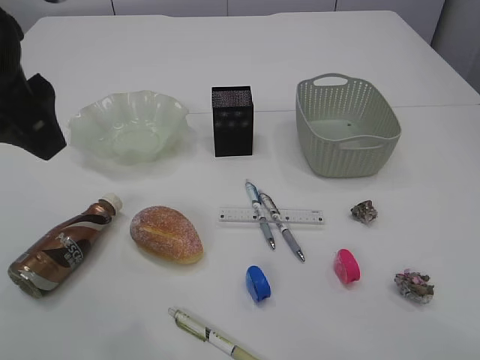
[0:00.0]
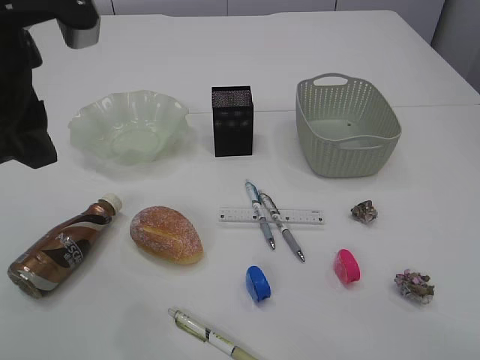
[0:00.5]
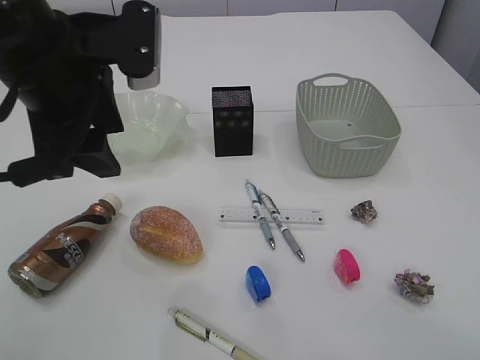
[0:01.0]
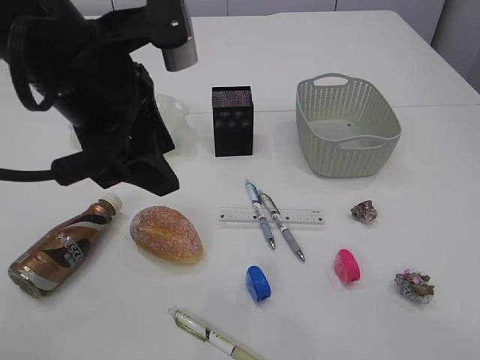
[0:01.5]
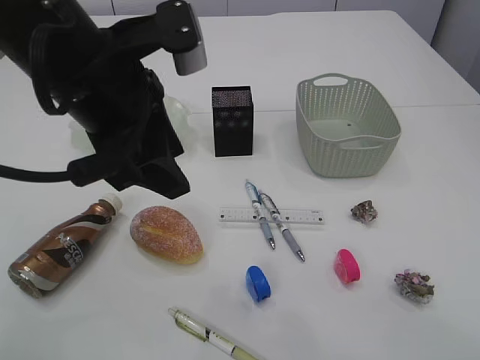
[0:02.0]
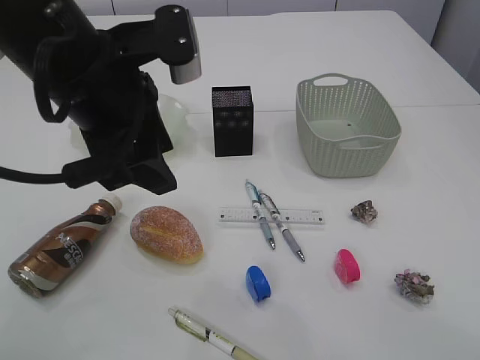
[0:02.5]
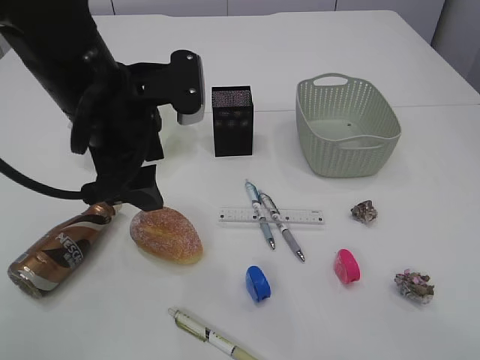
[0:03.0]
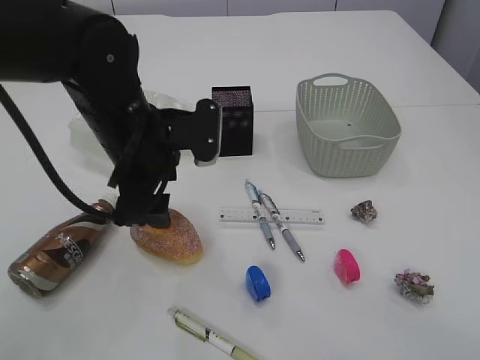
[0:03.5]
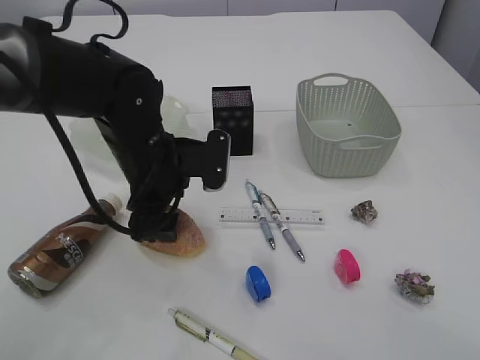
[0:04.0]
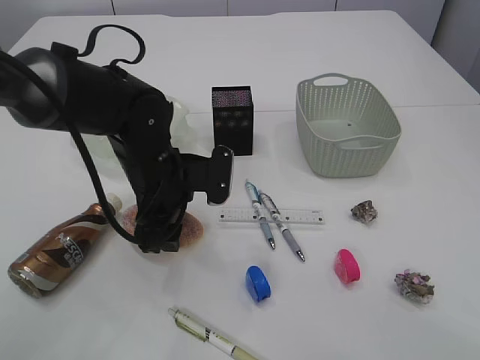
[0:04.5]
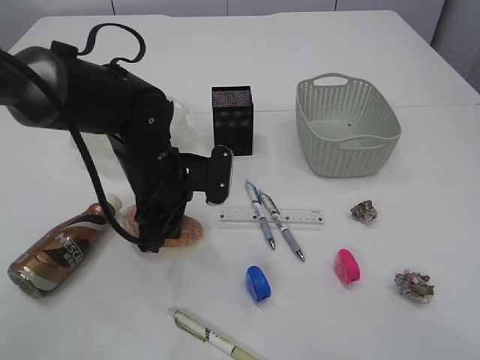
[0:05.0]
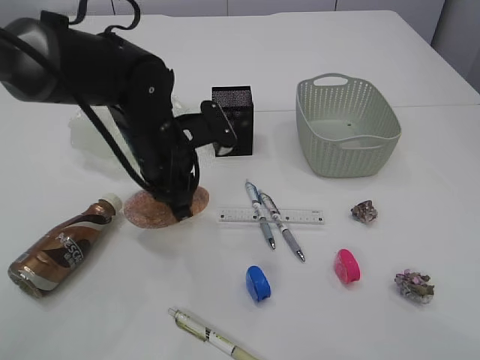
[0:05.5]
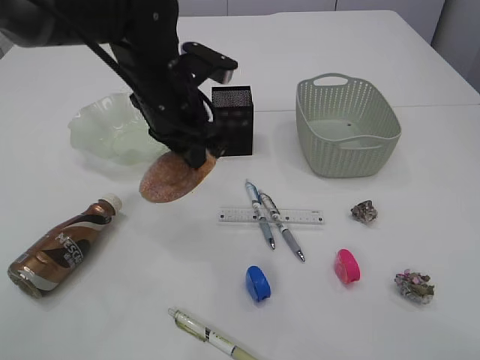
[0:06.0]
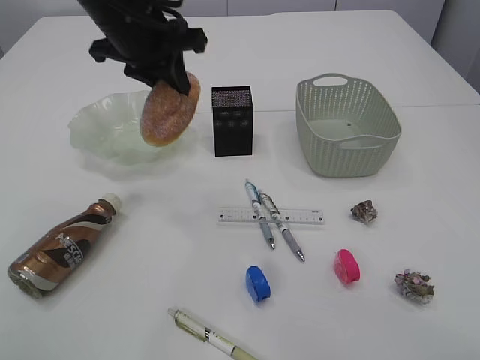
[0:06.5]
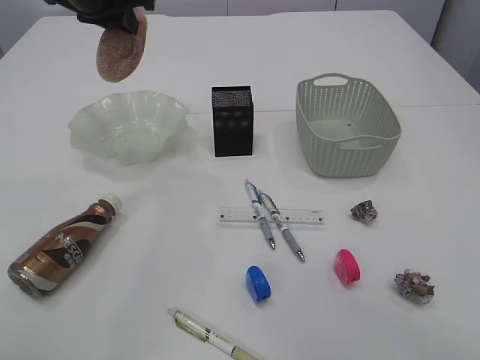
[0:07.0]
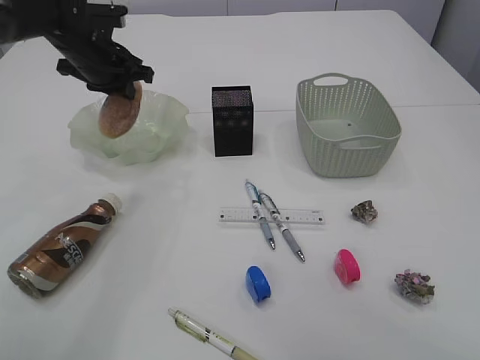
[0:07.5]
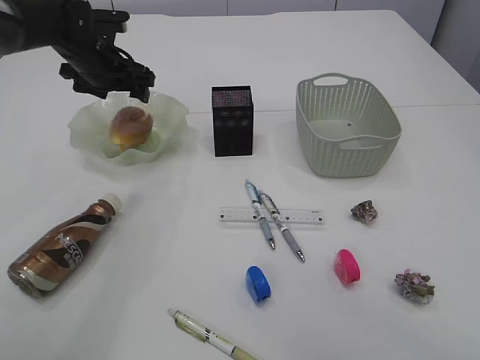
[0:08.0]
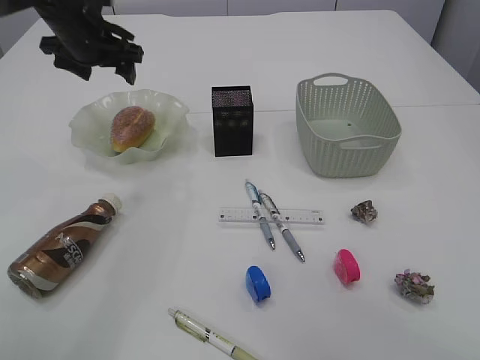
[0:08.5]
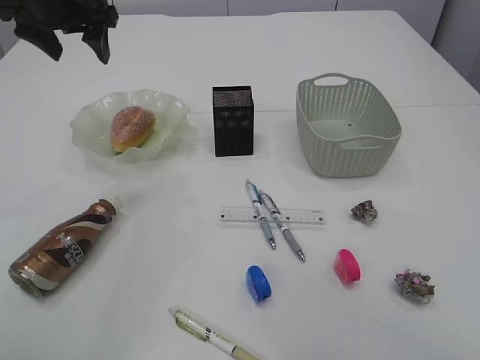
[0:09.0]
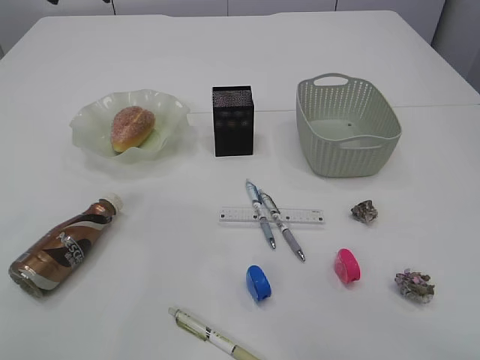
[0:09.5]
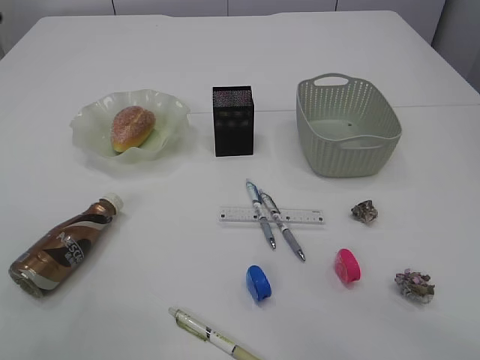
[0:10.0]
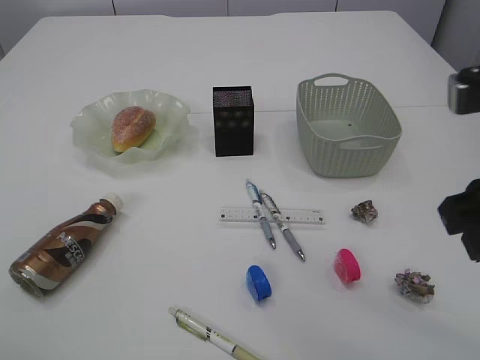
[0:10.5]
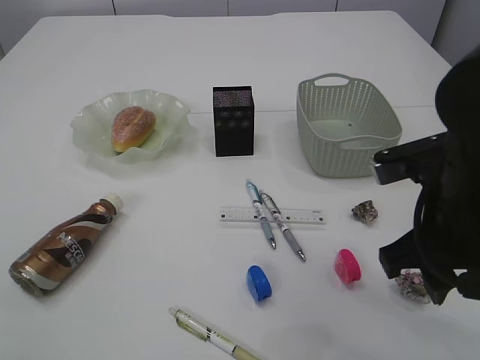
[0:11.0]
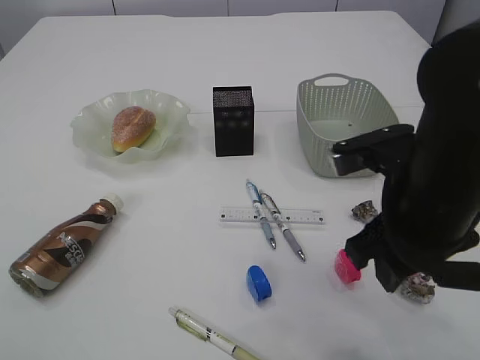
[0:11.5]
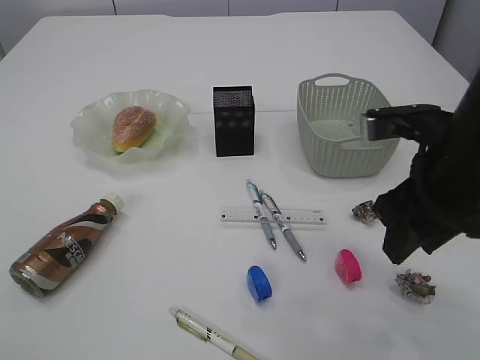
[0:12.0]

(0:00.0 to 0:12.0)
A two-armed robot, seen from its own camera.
Step, 0:06.0 - 0:08.5: place the bread in the plate.
0:00.0 - 0:02.0: The left gripper moves to the right and downward, some 10 cm.
0:02.0 - 0:04.0: The left gripper is displaced downward and forward by some 15 cm.
0:04.0 - 0:06.0: The left gripper is displaced upward by some 5 cm, and closes its fingers.
0:06.0 - 0:08.0: The left gripper heads forward and to the left, covering roughly 20 cm, and opens its fingers.
0:08.0 - 0:10.0: The left gripper travels backward and upward by about 35 cm.
0:10.0 - 0:12.0: The left gripper moves backward, approximately 15 cm. The right gripper shifts roughly 15 cm forward and downward.

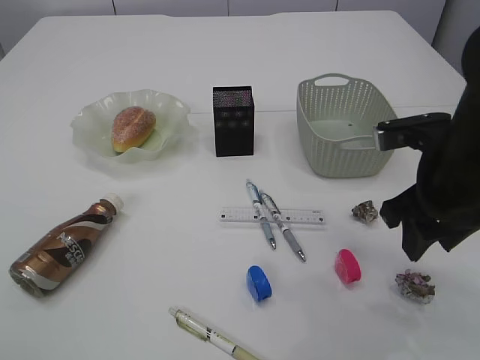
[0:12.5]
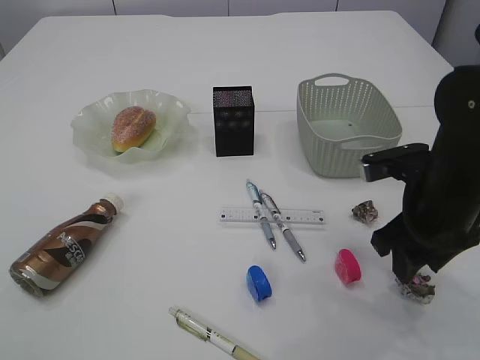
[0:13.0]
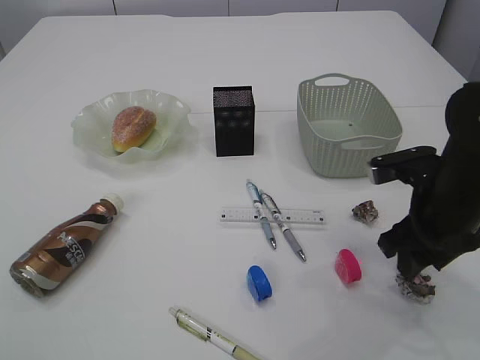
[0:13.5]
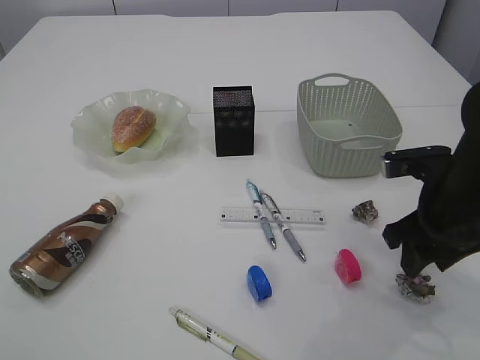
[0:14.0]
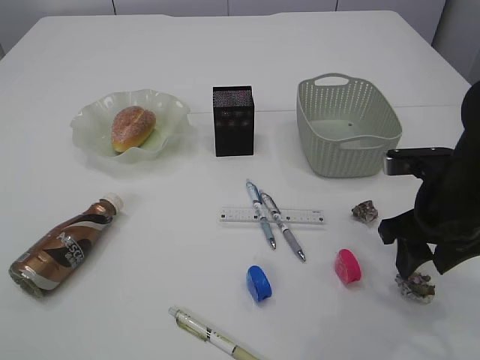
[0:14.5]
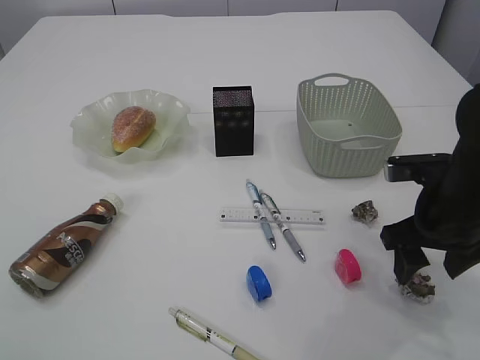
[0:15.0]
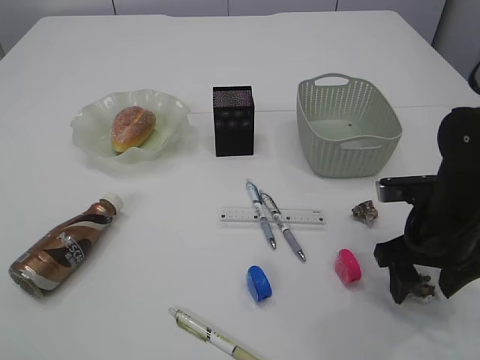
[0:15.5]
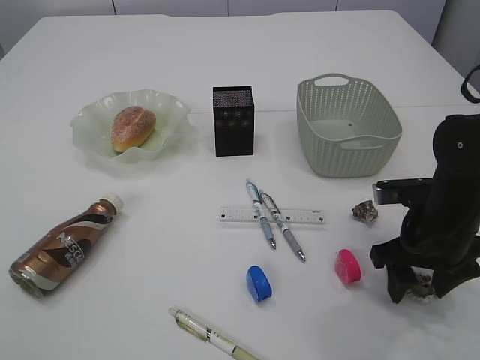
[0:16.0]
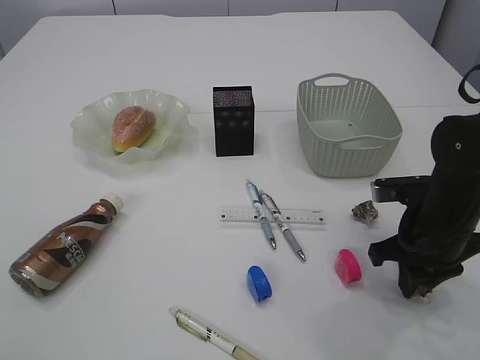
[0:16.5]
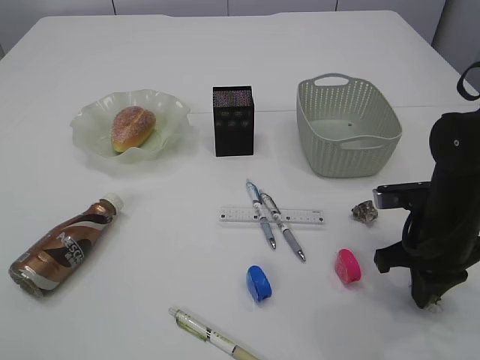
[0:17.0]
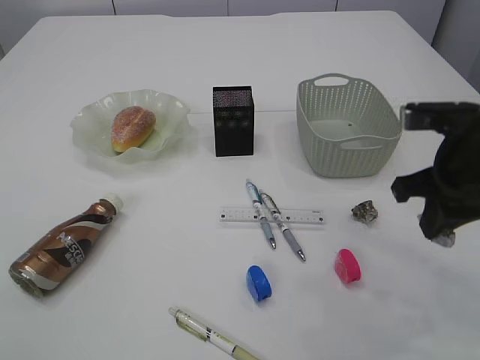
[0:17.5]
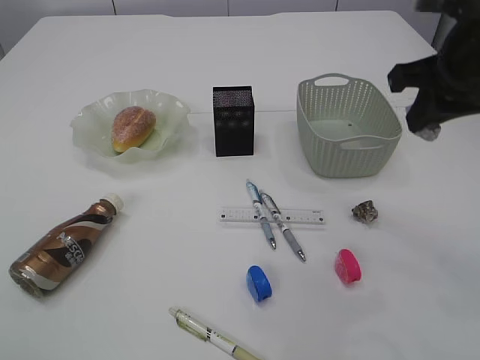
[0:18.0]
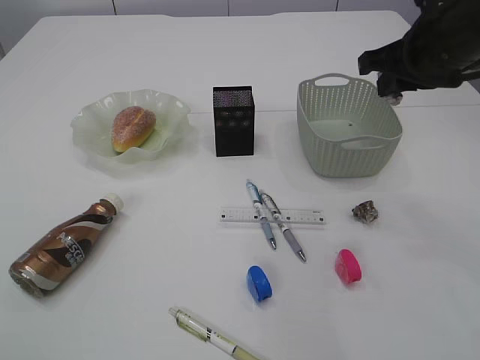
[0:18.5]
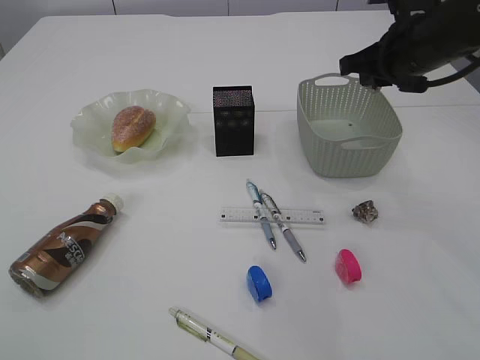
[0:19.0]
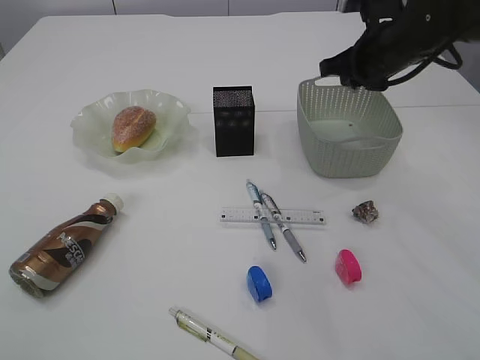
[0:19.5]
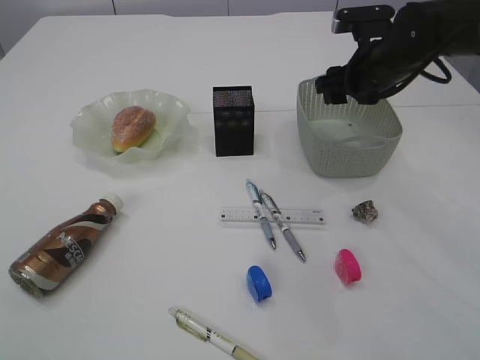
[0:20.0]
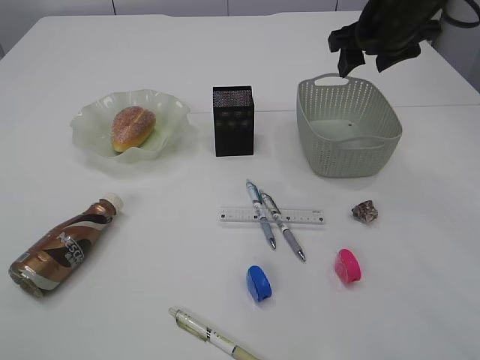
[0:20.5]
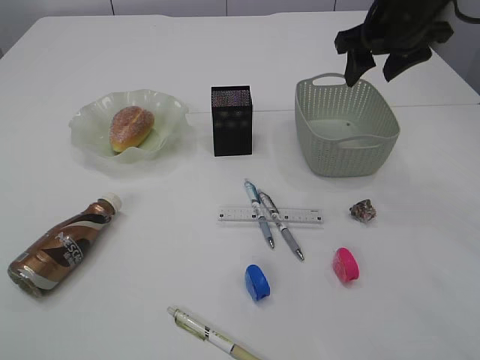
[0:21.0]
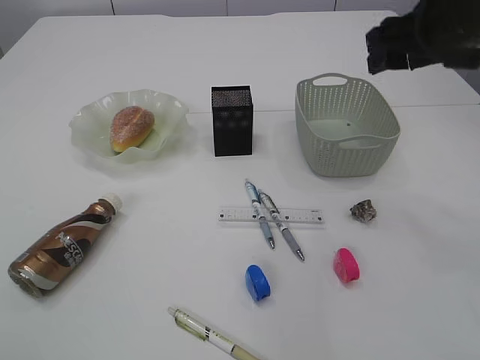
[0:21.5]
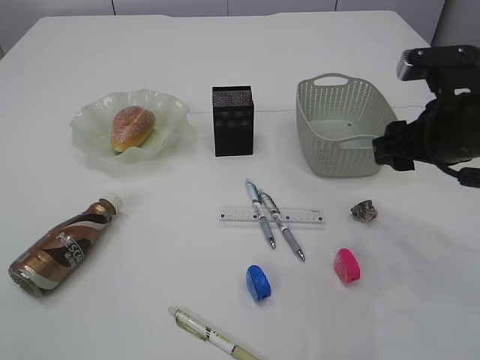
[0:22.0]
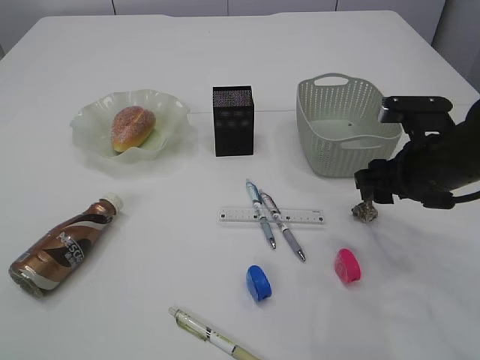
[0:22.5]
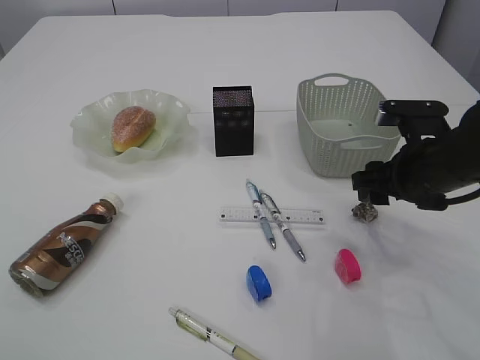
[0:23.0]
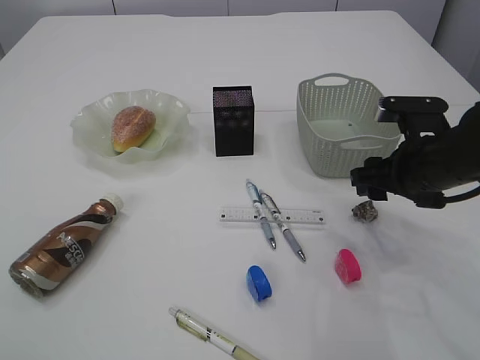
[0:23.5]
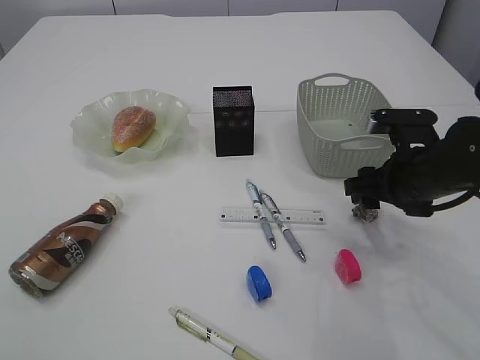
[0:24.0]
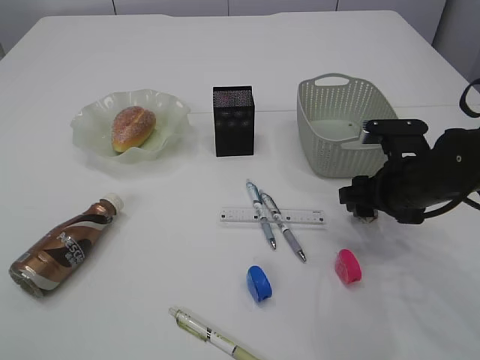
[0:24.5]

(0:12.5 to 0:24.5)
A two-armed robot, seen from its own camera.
Step, 0:12.5 - 0:17.0: Pick up the waste paper.
Step, 0:17.5 - 0:20.0: Place the waste paper in the basket.
0:12.5 - 0:14.5: The right gripper heads downward, covering about 5 cm.
0:14.5 - 0:16.5: The right gripper shifts by about 5 cm, and closes up.
0:16.5 - 0:18.5: The right gripper shifts roughly 20 cm upward, and closes up.
0:18.5 - 0:20.5: The right gripper heads forward, covering some 10 cm, and opens up.
0:20.5 - 0:22.5: The right gripper goes approximately 20 cm backward and downward.
0:22.5 - 0:24.5: The grippers make only small movements.

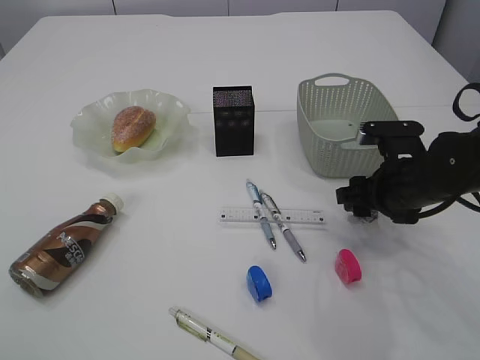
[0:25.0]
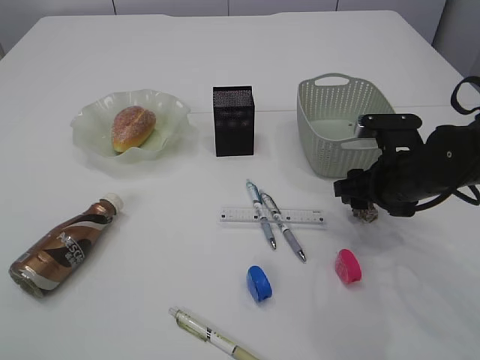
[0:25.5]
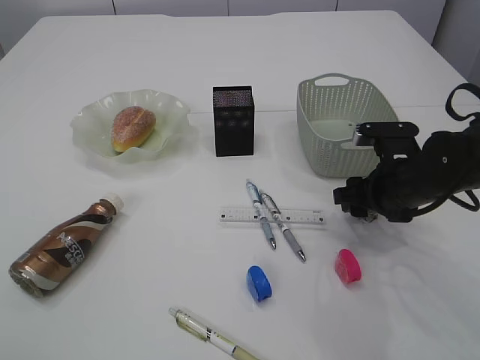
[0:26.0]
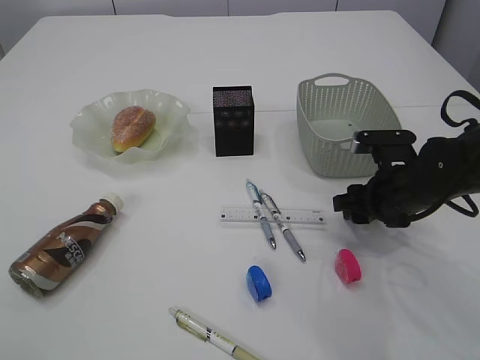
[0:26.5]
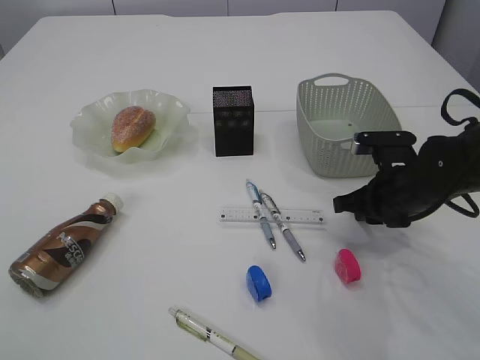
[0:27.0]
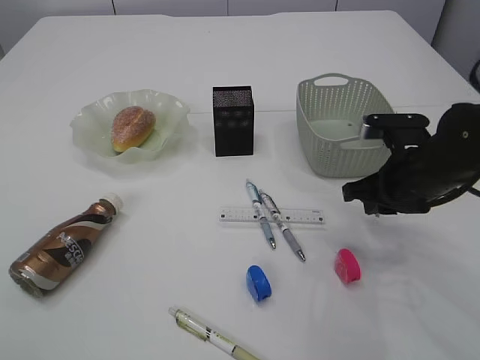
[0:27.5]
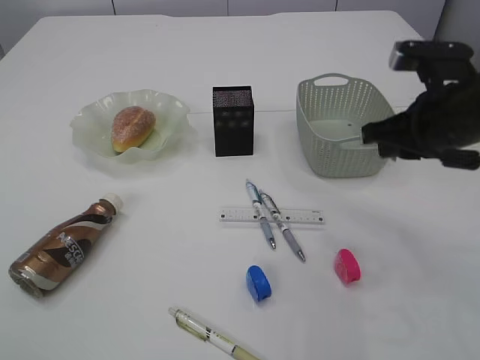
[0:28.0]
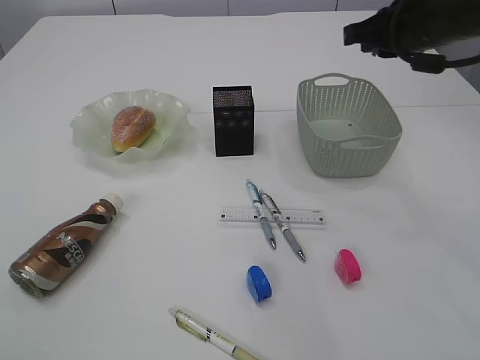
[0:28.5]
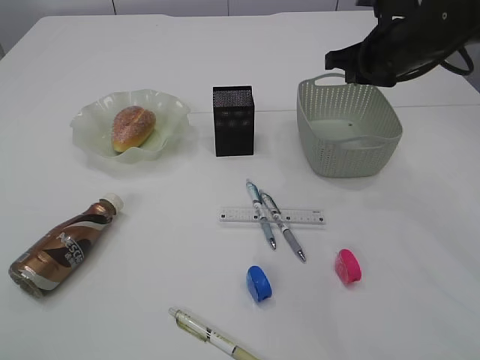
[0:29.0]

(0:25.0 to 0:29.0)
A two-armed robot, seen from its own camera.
Step, 0:25.0 - 0:27.5: Pick up the waste paper.
0:25.0 - 0:27.0: The right gripper closes up.
0:27.0 - 0:29.0: The right gripper goes about 20 cm upward and forward.
